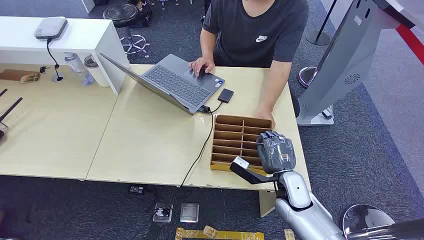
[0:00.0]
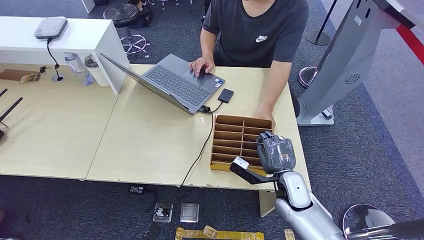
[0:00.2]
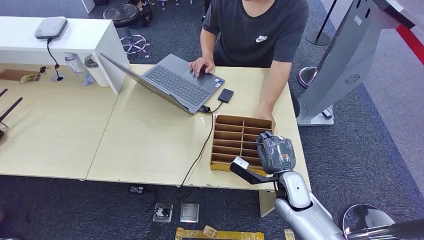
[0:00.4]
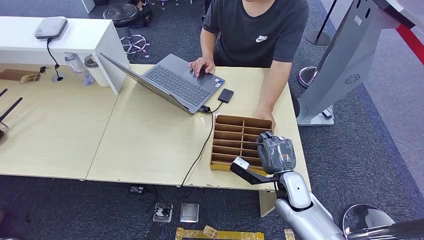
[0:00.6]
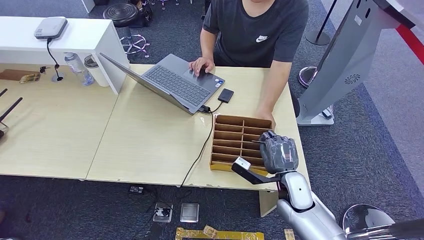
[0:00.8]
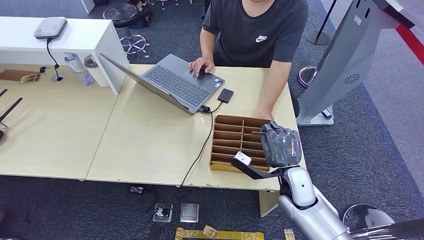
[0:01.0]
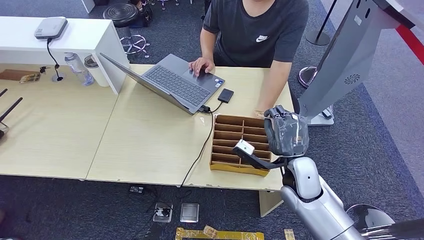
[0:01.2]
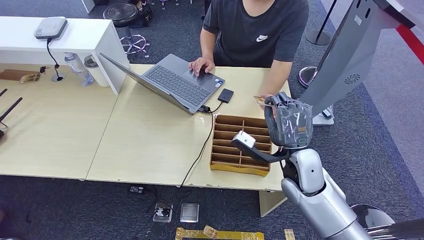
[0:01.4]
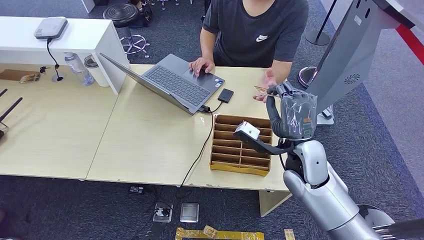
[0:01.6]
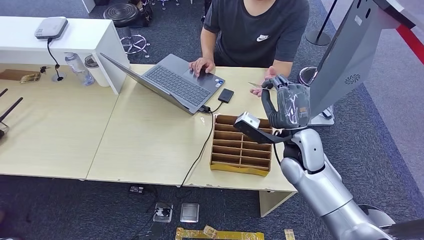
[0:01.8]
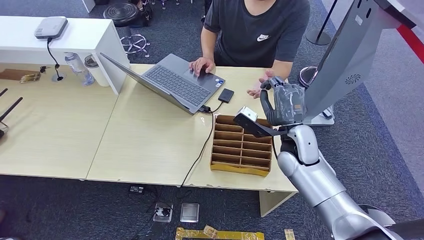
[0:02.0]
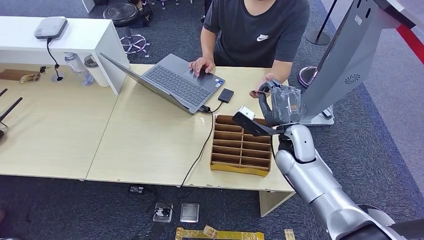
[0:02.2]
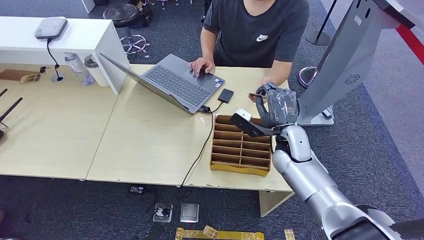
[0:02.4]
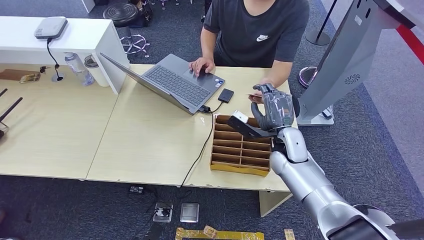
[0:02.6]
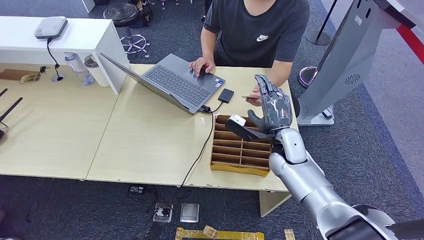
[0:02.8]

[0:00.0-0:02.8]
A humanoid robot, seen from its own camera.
Step, 0:00.0 to 0:00.8: Pick up the key card from the card box.
Step, 0:01.0 to 0:02.8: Hand the key card to the target.
0:01.4 to 0:02.8: The right hand shifts some 5 cm forward.
